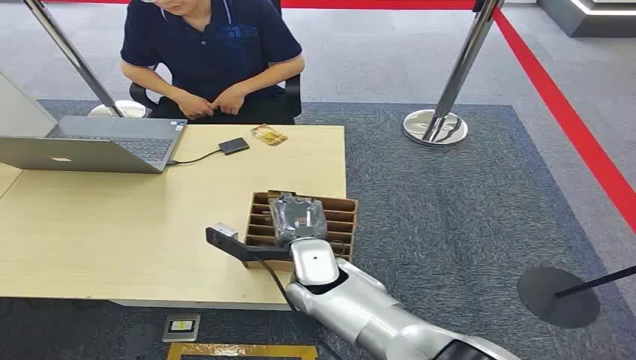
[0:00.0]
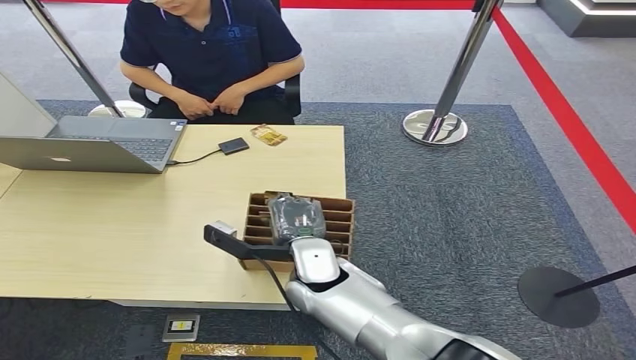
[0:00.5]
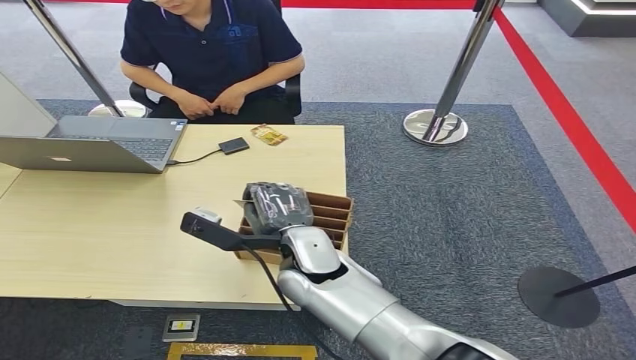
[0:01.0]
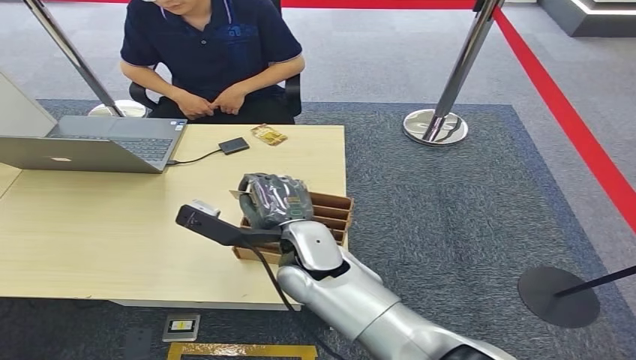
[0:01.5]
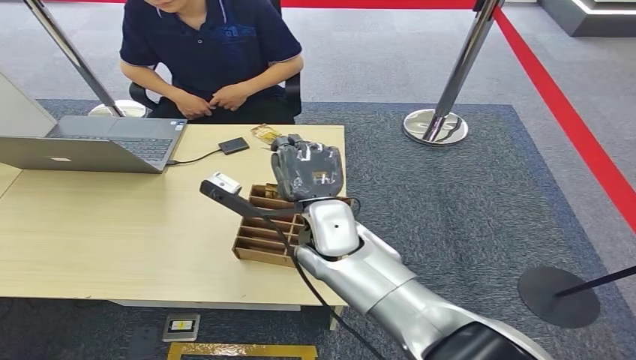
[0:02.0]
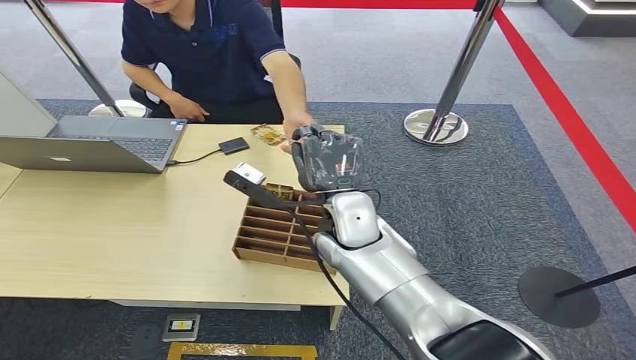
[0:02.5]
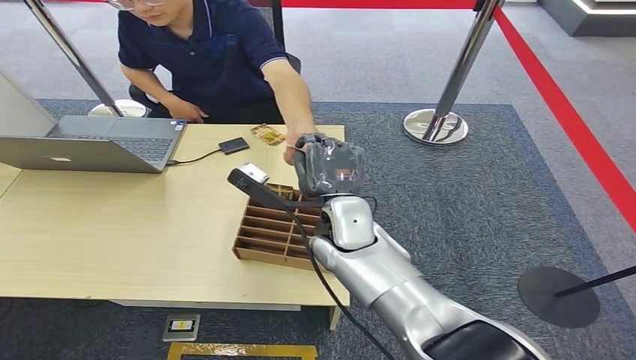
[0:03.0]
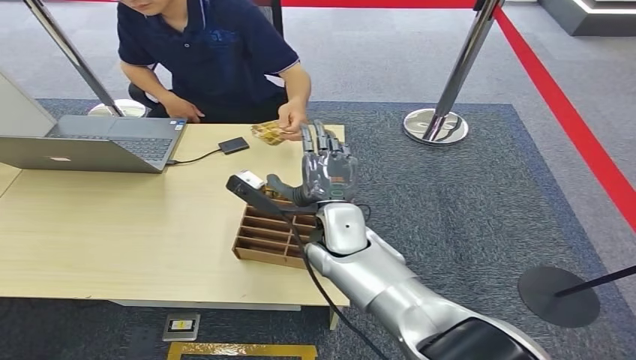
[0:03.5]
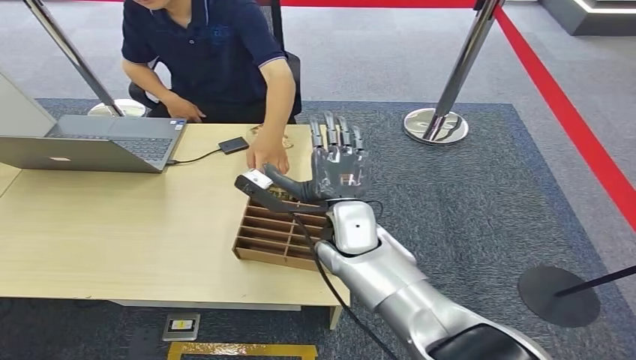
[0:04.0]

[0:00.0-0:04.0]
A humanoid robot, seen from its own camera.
Step, 0:00.0 to 0:01.5: Pick up the room card from the card holder.
Step, 0:02.0 to 0:04.0: Hand the room card to the target.
0:02.0 to 0:04.0: The hands make only small movements.

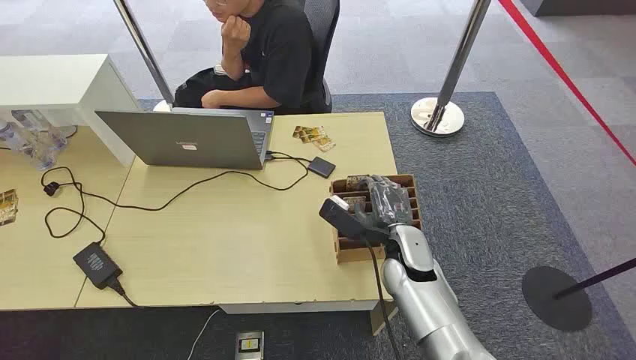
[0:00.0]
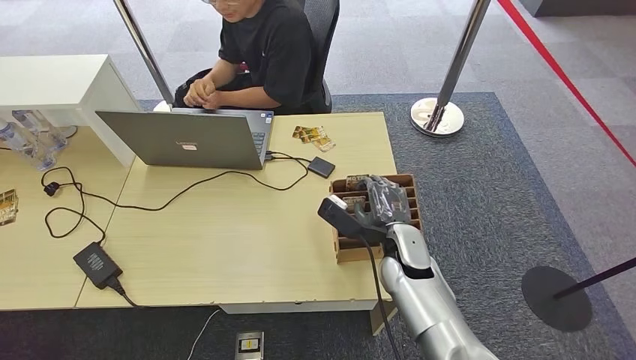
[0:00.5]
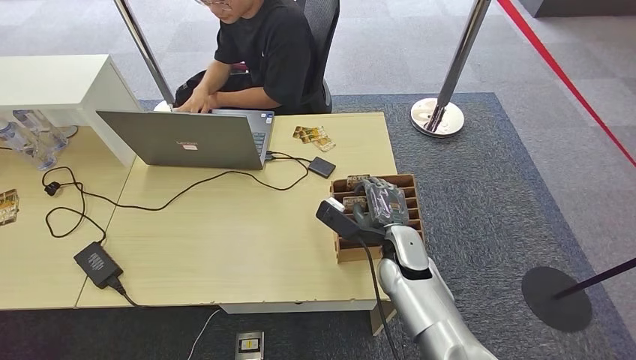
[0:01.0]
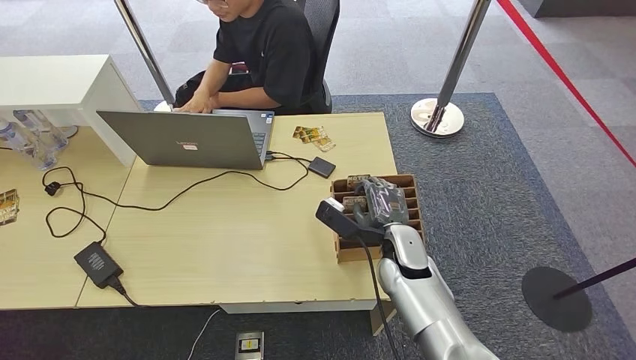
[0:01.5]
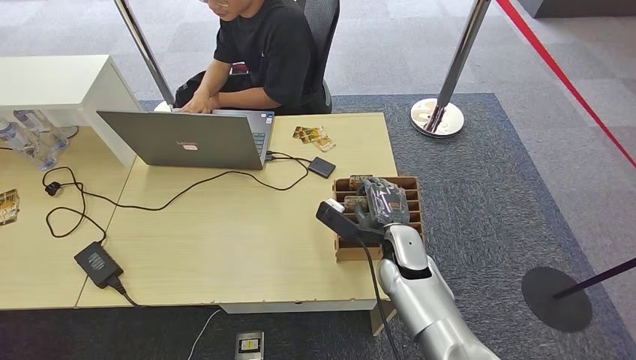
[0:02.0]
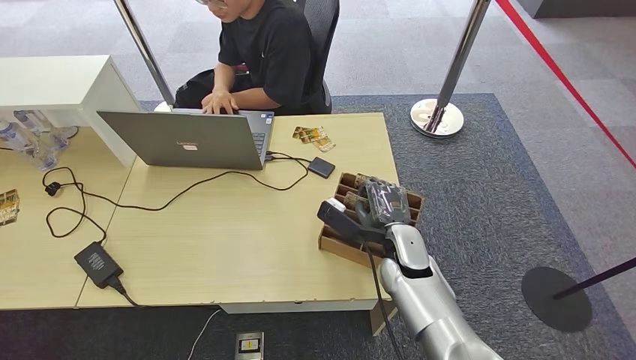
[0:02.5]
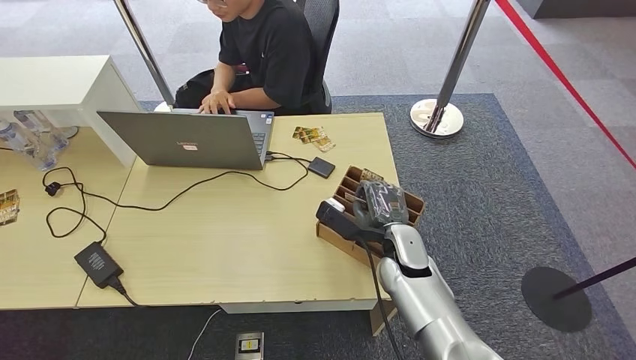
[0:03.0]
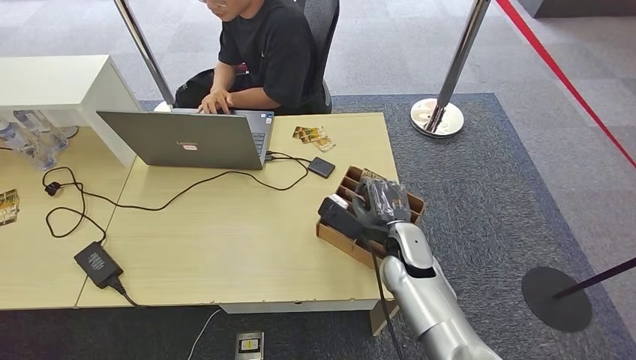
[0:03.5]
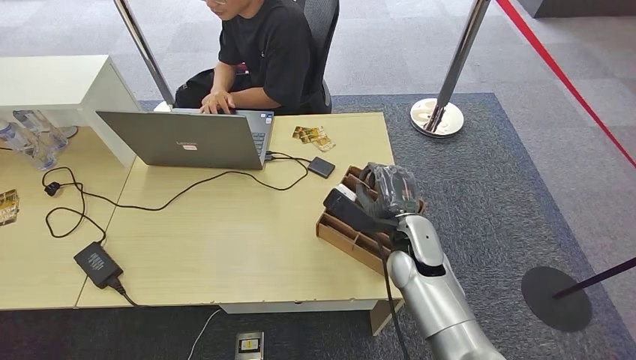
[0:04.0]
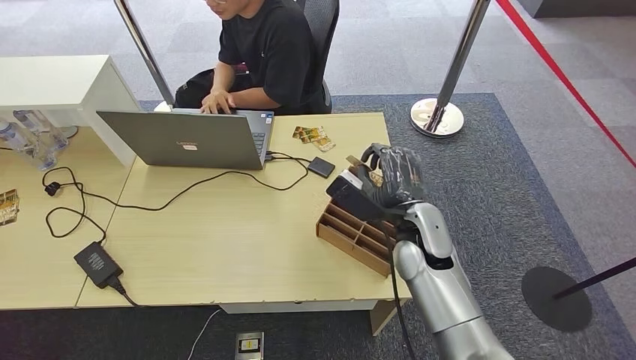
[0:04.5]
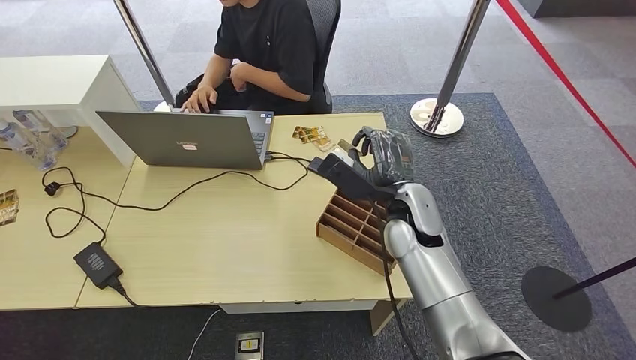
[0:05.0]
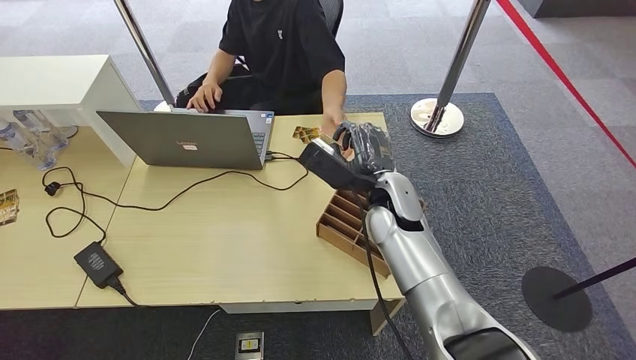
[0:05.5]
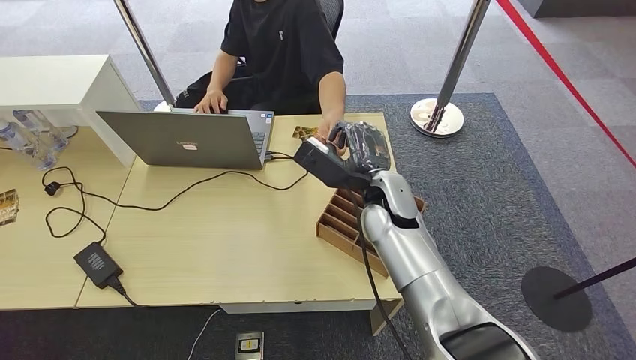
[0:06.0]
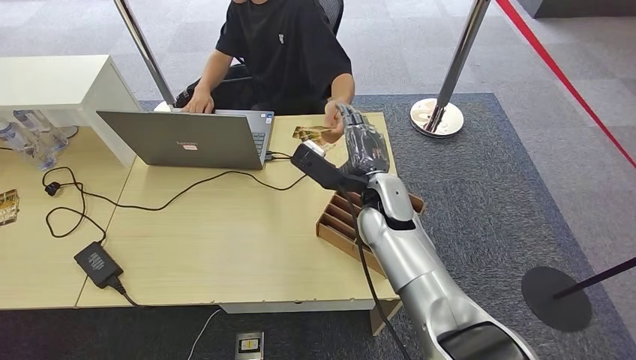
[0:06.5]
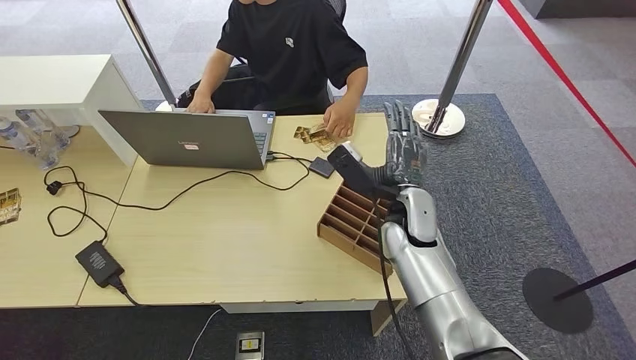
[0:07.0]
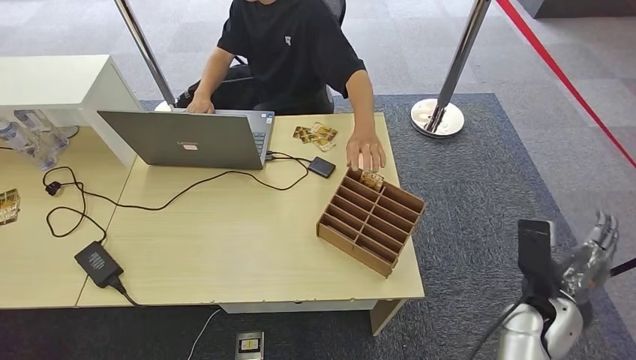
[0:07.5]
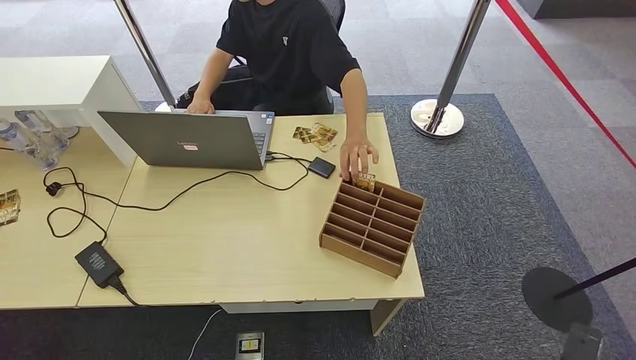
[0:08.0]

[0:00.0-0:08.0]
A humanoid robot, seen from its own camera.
Step, 0:00.0 to 0:04.5: Pick up the room card from the card holder.
Step, 0:05.0 to 0:08.0: Hand the room card to the target.
0:02.0 to 0:04.0: The hands move only a little.
0:04.0 to 0:06.0: The right hand travels upward and forward by approximately 10 cm.
0:06.0 to 0:08.0: The right hand is displaced to the right, backward and downward by some 40 cm.
